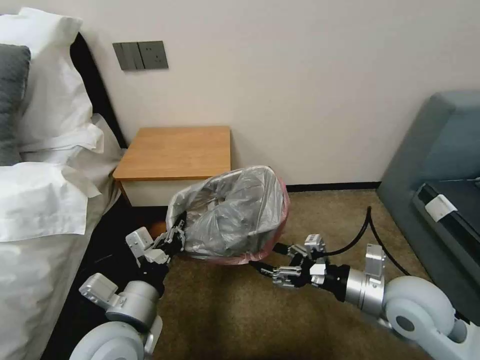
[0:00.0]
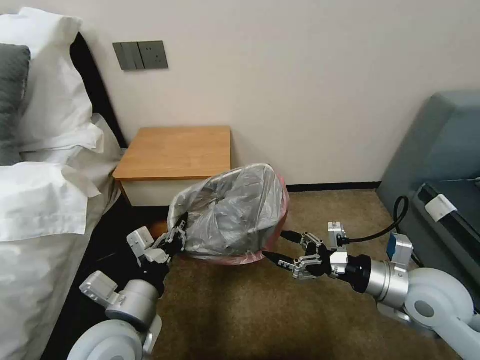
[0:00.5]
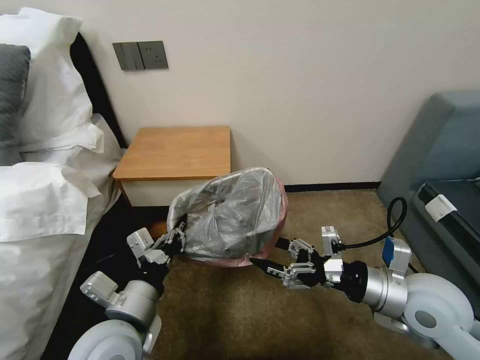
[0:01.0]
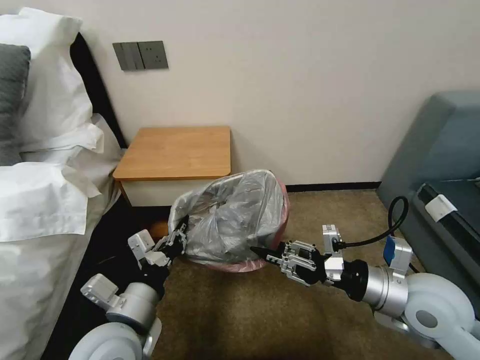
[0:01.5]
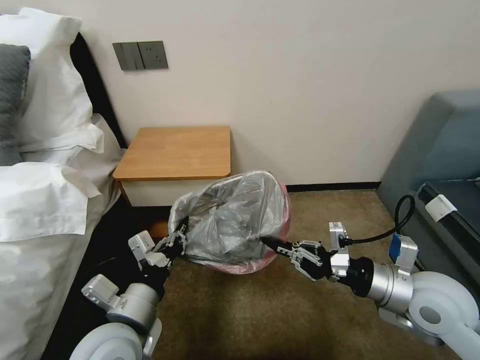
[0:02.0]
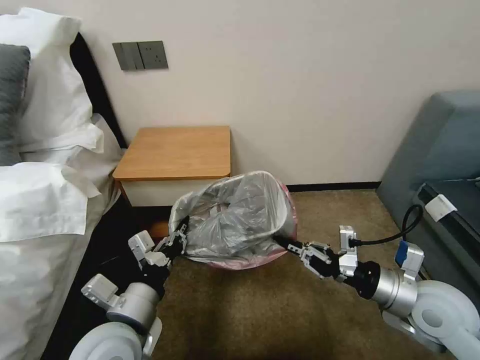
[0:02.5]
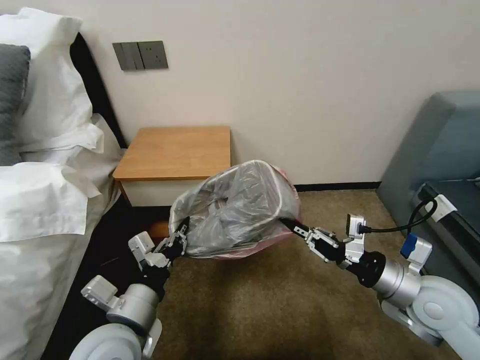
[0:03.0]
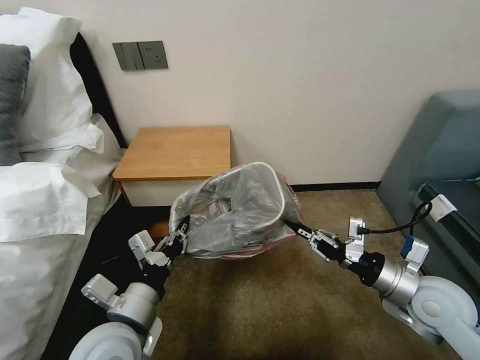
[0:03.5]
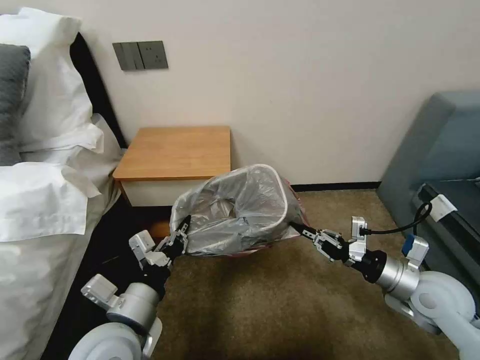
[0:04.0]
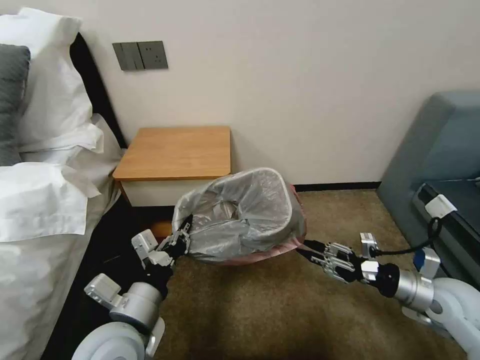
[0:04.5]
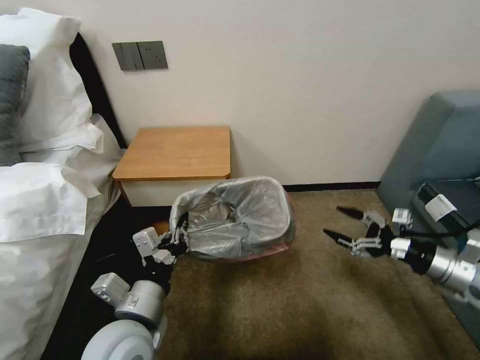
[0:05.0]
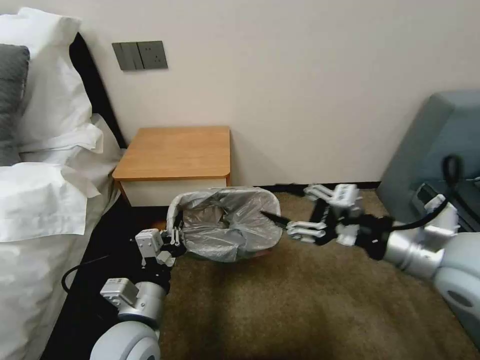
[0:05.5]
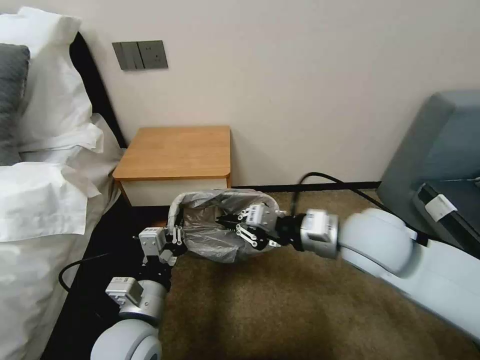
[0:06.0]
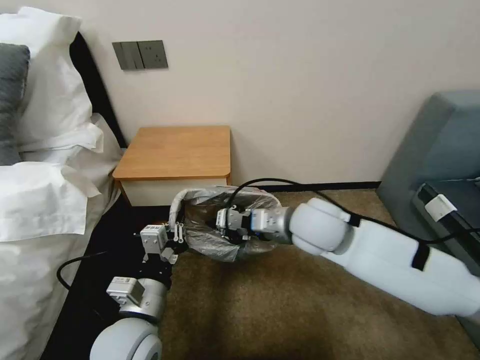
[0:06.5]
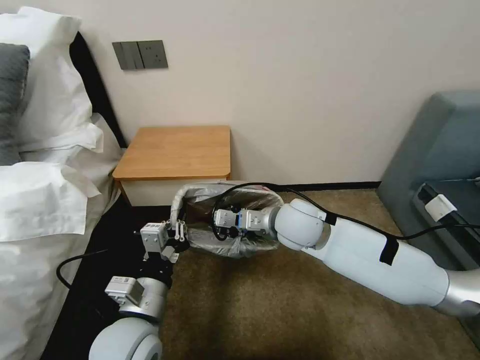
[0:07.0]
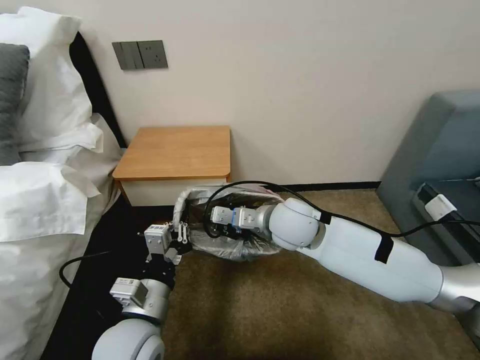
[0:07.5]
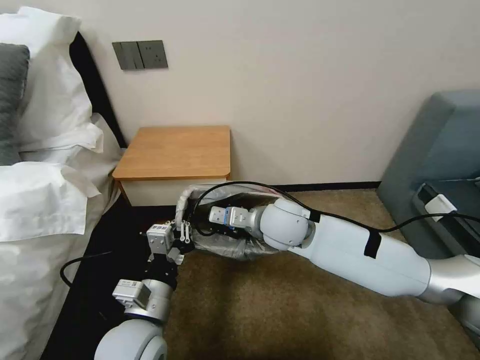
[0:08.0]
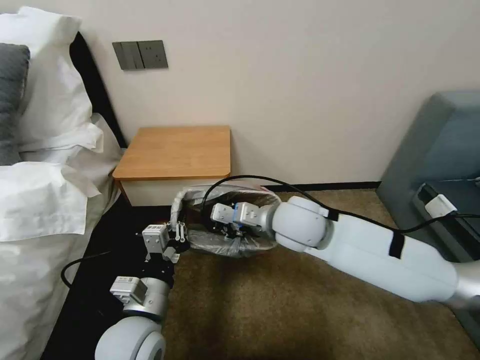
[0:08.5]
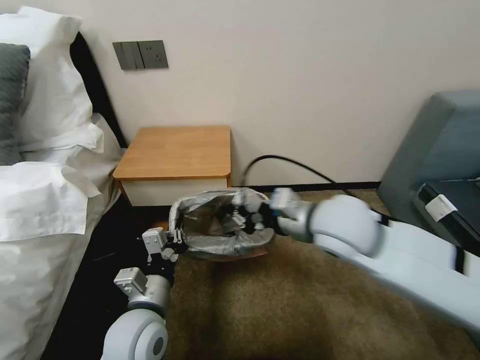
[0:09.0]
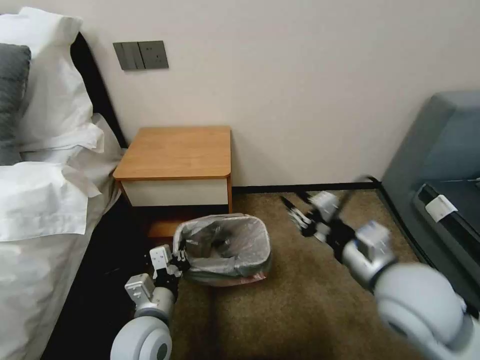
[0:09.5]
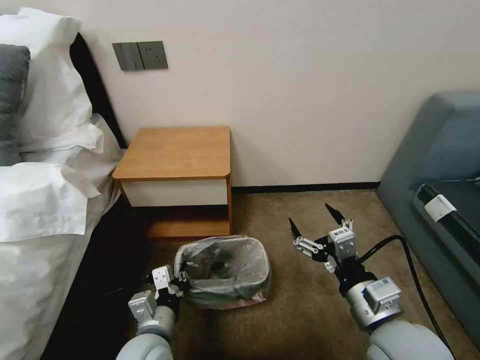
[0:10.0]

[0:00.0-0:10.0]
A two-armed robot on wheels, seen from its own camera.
Task of the whole recording: Pick up the garbage bag from the table and place it over the trash can.
0:00.0 to 0:02.0: The right gripper closes.
0:02.0 to 0:04.0: The right gripper is displaced downward and to the right by some 5 cm.
0:04.0 to 0:06.0: The right gripper moves to the left and upward, roughly 20 cm, and opens, then closes again.
0:06.0 to 0:08.0: The right gripper moves to the left, forward and downward, approximately 15 cm.
0:08.0 to 0:10.0: The right gripper goes approximately 25 cm backward and to the right, and opens its fingers; the left gripper is displaced downward by roughly 10 cm.

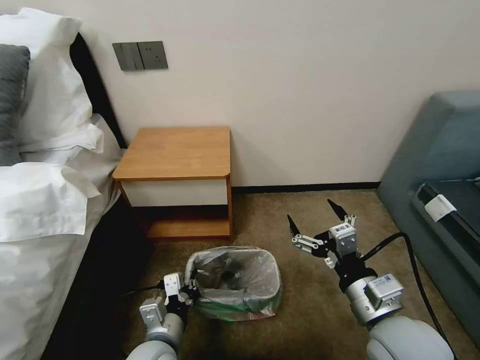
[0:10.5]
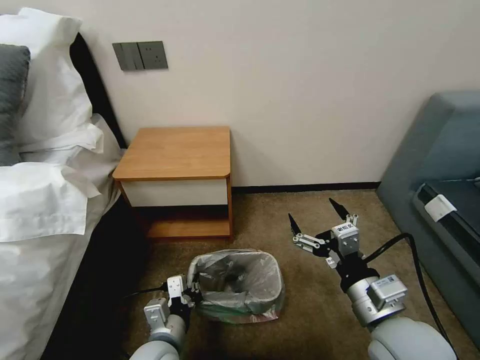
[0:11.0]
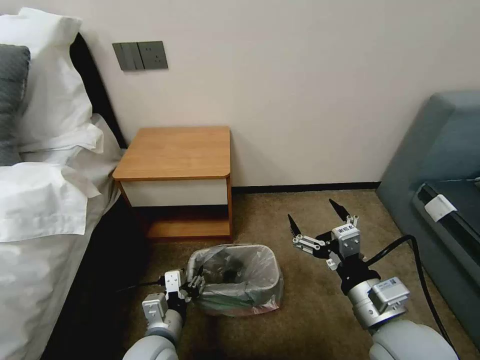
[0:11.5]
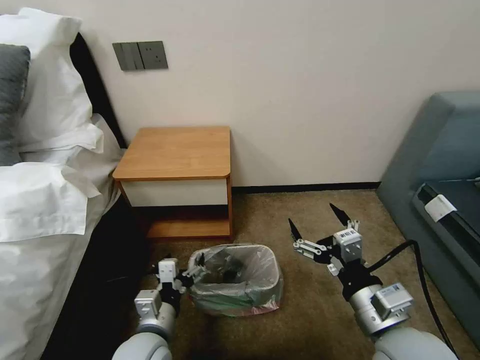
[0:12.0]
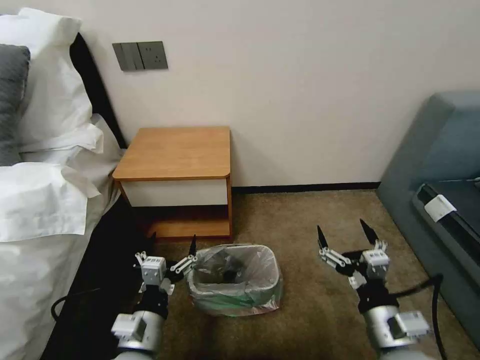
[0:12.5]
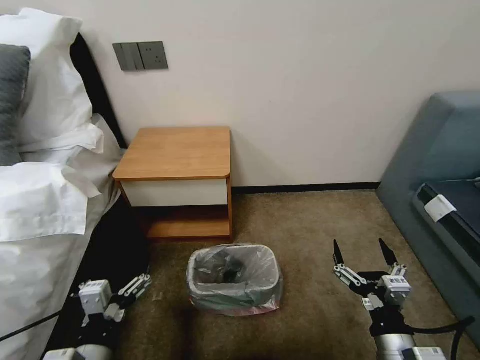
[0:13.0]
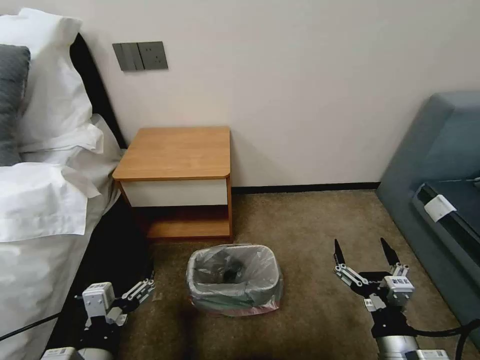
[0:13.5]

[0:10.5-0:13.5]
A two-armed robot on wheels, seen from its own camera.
Task of the whole recording: Pick up the garbage bag from the table and place it over the trash can.
0:10.5 to 0:12.0: The left gripper opens.
0:12.0 to 0:13.5: The right gripper shifts roughly 10 cm downward and backward, while the left gripper heads backward, upward and to the left, covering approximately 15 cm.
